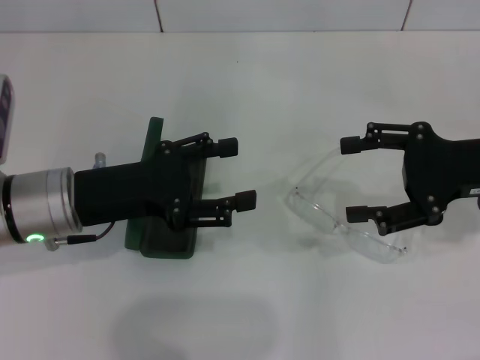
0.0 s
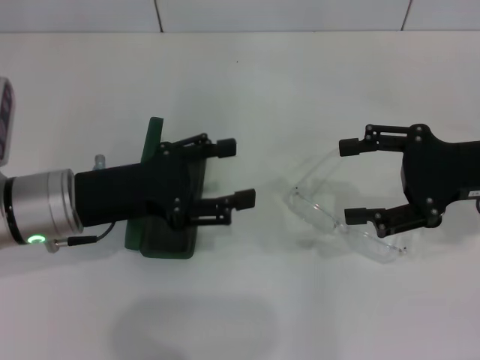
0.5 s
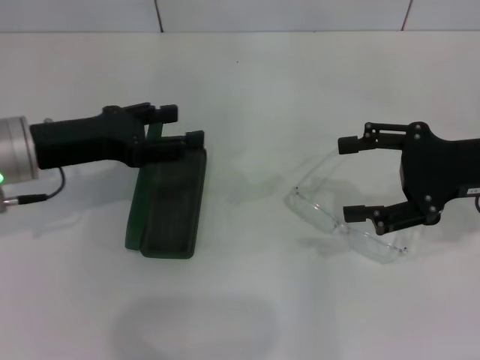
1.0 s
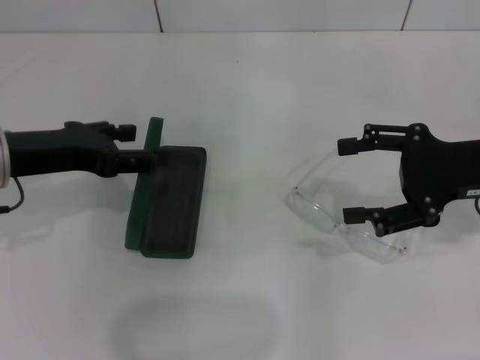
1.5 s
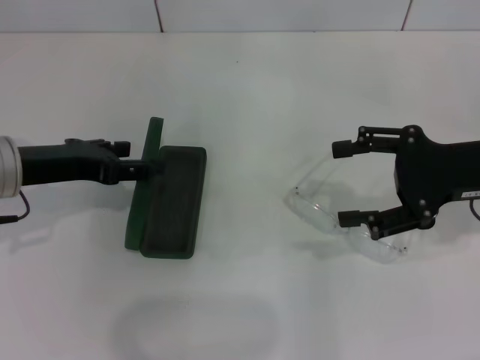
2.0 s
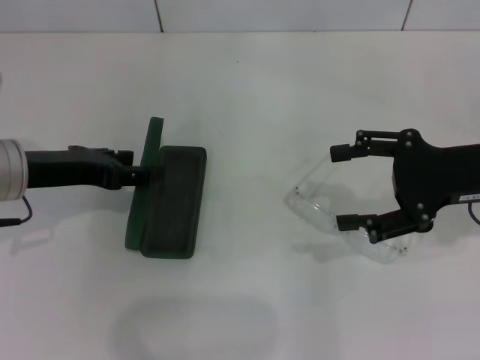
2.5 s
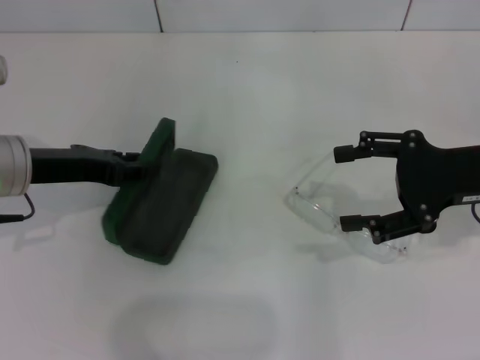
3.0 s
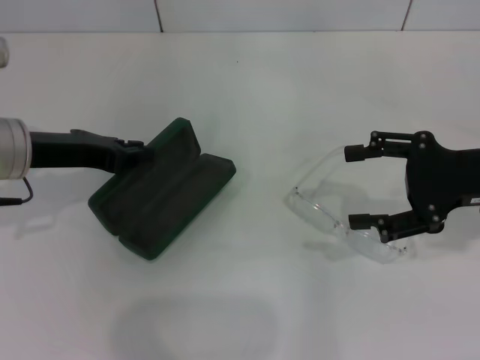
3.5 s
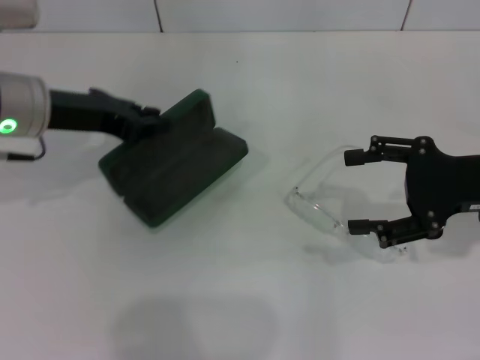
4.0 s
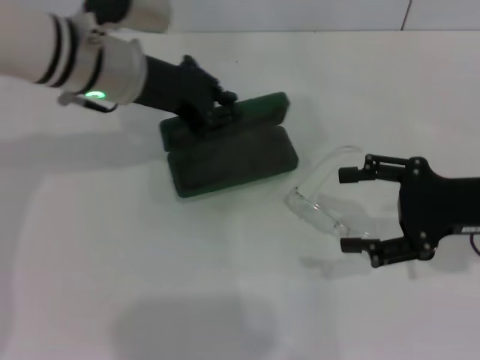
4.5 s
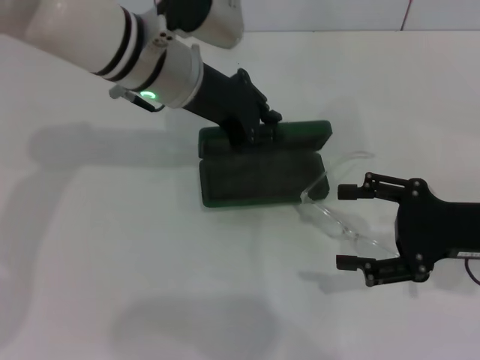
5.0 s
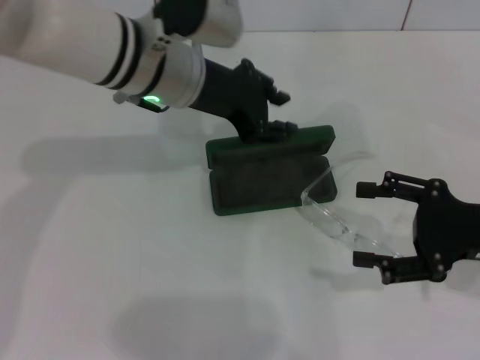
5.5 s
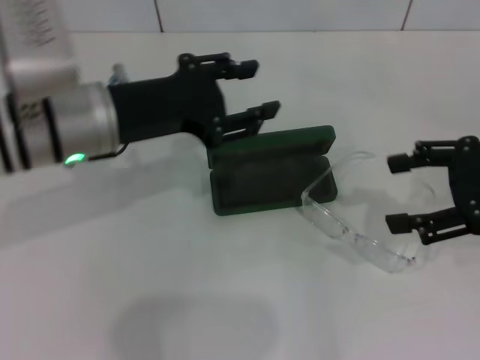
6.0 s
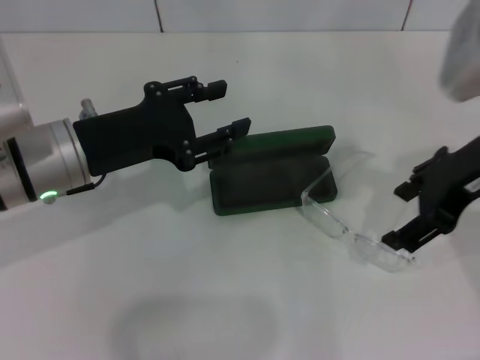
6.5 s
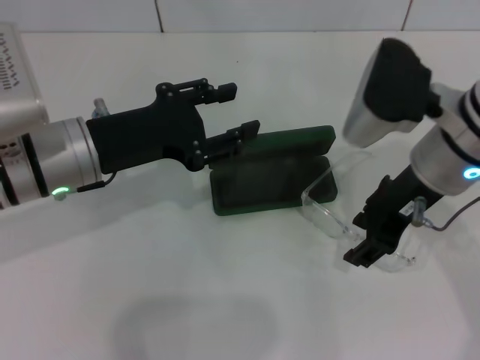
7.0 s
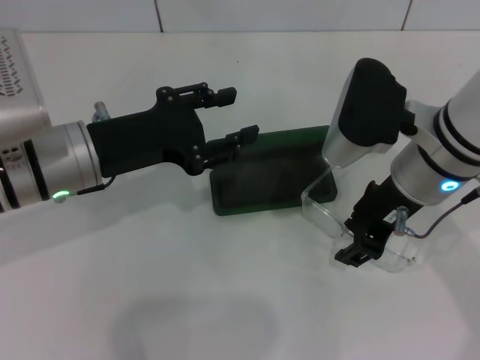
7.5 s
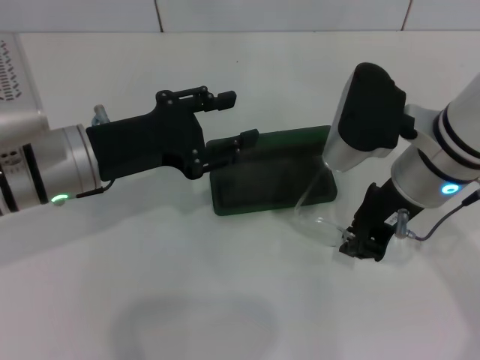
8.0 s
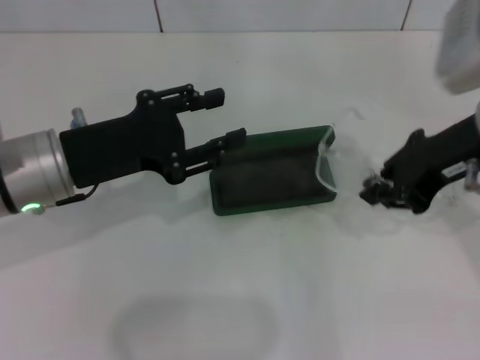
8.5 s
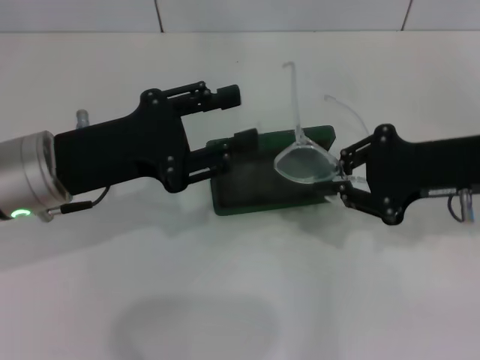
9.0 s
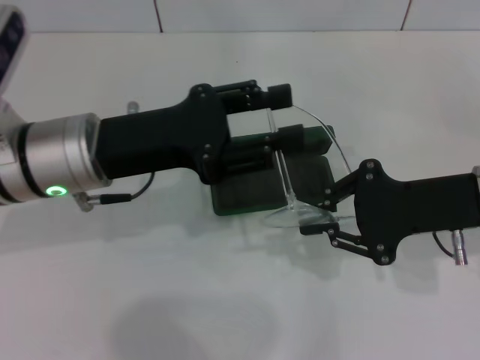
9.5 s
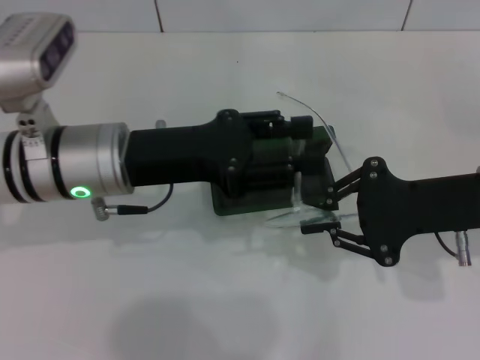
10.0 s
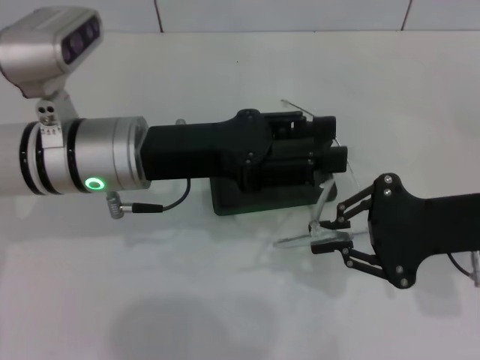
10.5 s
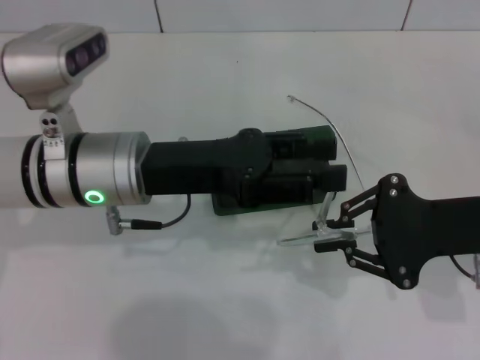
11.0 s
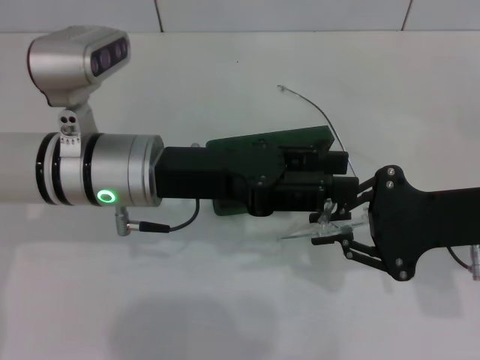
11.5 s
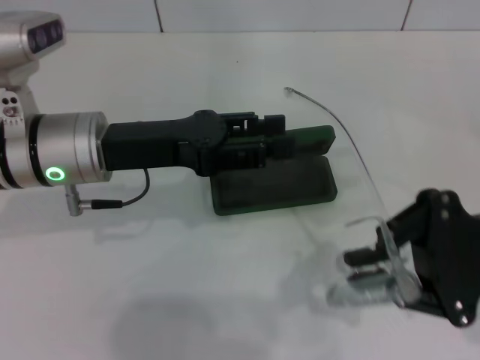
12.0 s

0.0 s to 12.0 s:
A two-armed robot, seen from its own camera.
Step, 0.0 to 3.0 s: Grab the glasses case with your left hand.
Step, 3.5 to 5.0 s: Place the glasses case in the center of the table with your left hand.
Step, 5.5 to 8.0 s: Grab the eyeglass frame with your right hand.
0.0 to 2.0 s: The left gripper moves about 5 cm.
2.0 to 4.0 s: The left gripper is displaced forward by some 5 cm, and closes up.
4.0 to 6.0 s: The left gripper shifts about 5 cm to the right, and opens its fingers, while the right gripper travels upward by about 5 cm.
6.0 to 8.0 s: The right gripper heads to the left, covering some 15 cm, and closes up.
8.0 to 10.0 s: The right gripper goes approximately 10 cm to the right.

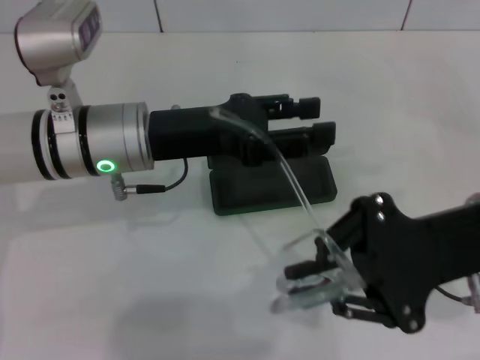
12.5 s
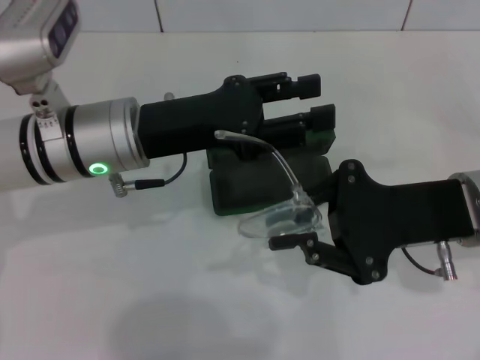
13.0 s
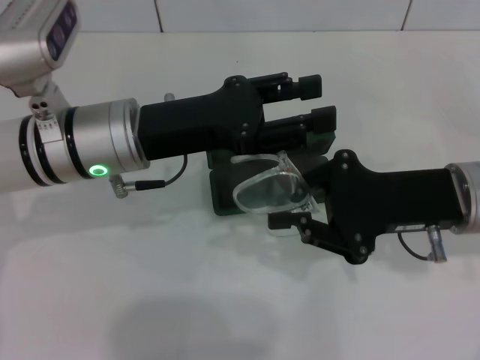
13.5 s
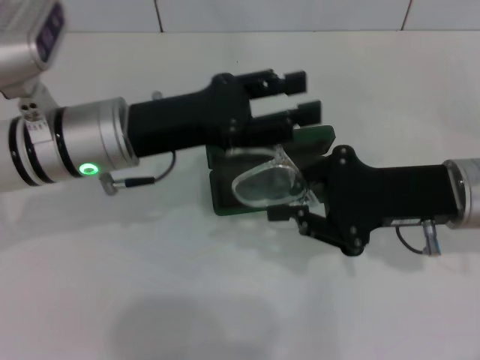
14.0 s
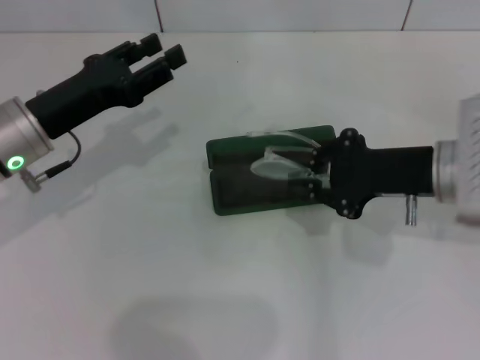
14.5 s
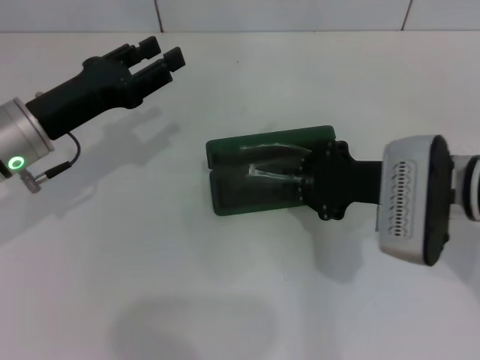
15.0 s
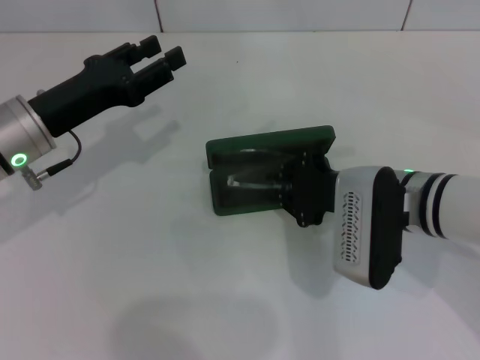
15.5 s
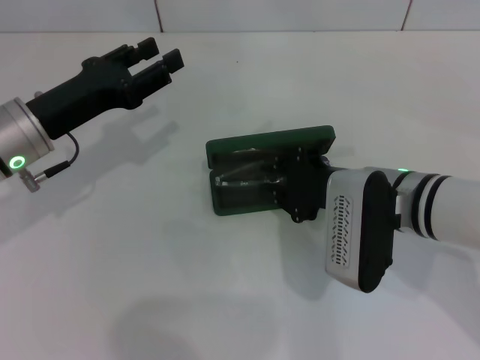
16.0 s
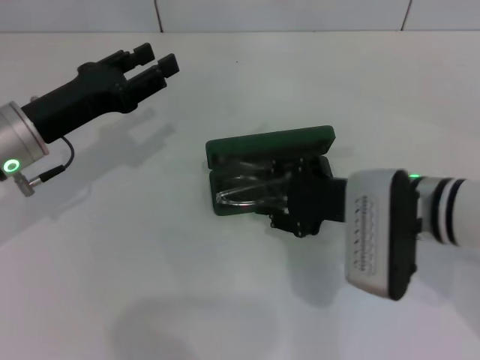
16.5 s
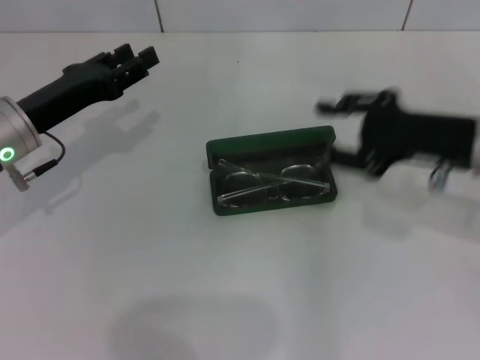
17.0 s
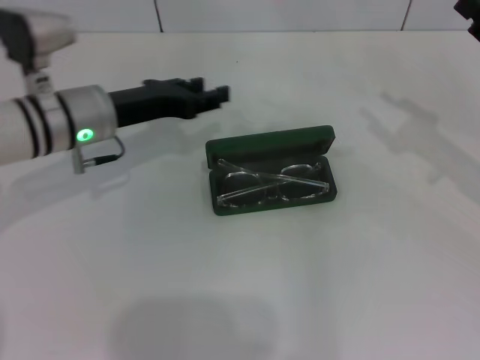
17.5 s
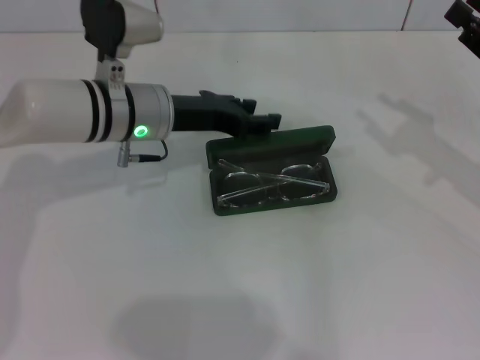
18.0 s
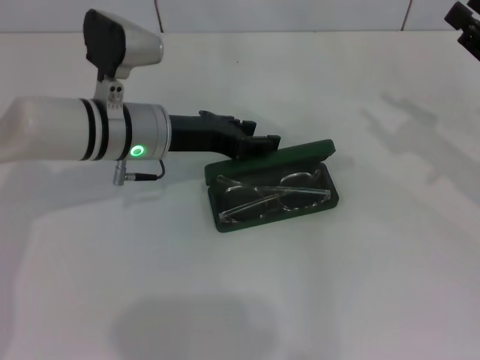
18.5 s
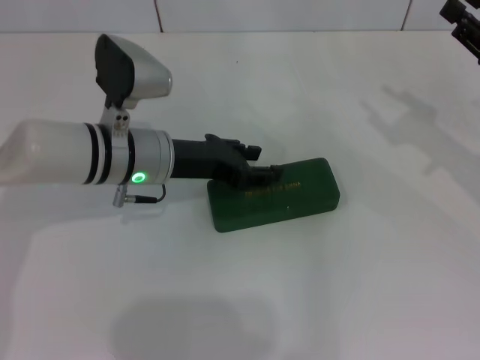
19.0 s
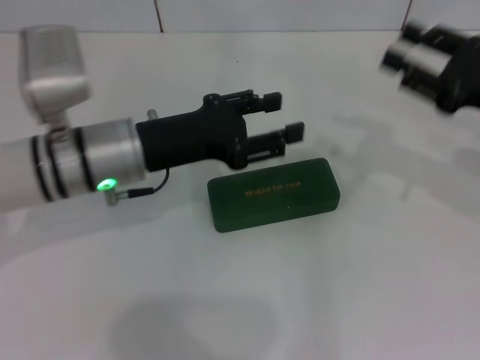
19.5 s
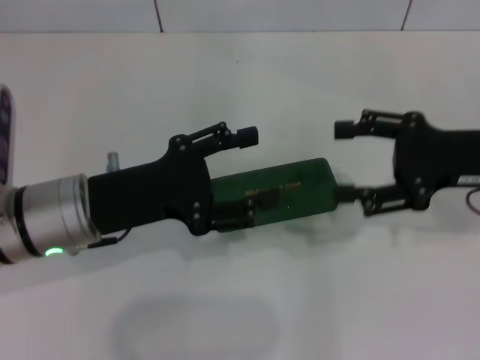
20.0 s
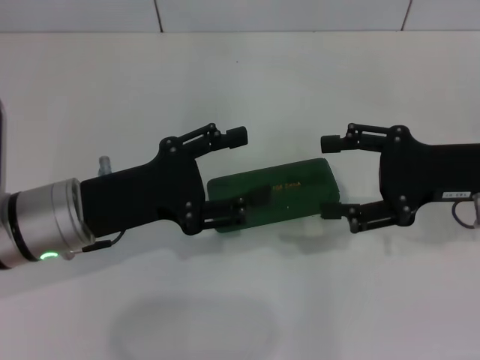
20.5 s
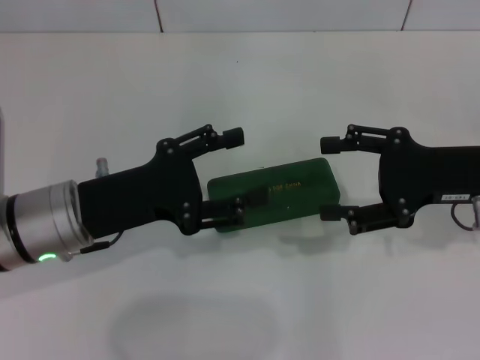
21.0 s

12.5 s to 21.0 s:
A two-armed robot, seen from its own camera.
Step, 14.0 to 16.5 s: Put the glasses into the case with your right hand.
Step, 17.0 to 18.5 s: Close the glasses case with your left hand.
12.5 to 14.5 s: The left gripper moves to the left, roughly 10 cm. Meanwhile the right gripper moves forward, roughly 5 cm.
14.5 to 16.5 s: The right gripper travels to the left by about 5 cm.
16.5 to 19.0 s: The right gripper moves to the right, approximately 20 cm. Meanwhile the left gripper travels to the right by some 10 cm.
19.0 to 21.0 s: The left gripper goes roughly 10 cm backward and to the left; the right gripper heads to the left, covering about 5 cm, and opens its fingers.

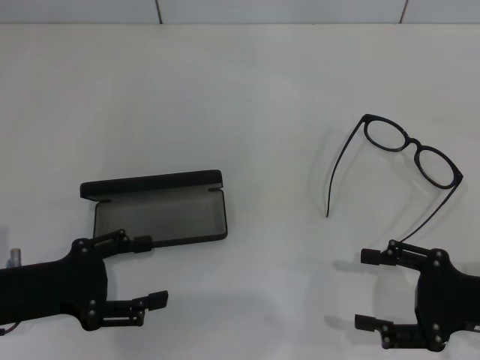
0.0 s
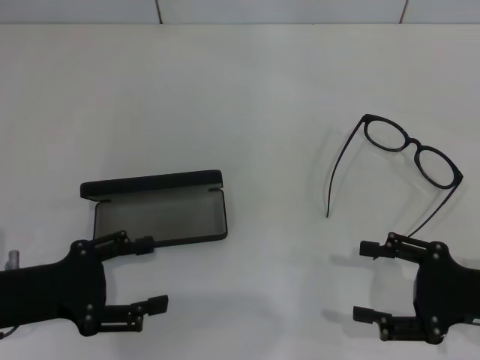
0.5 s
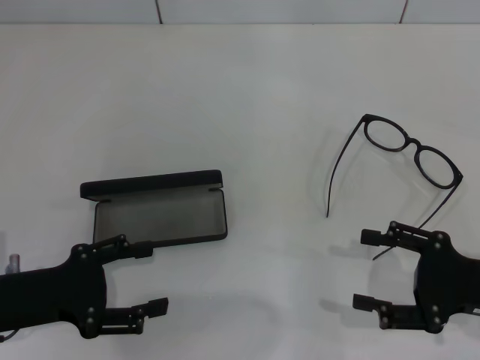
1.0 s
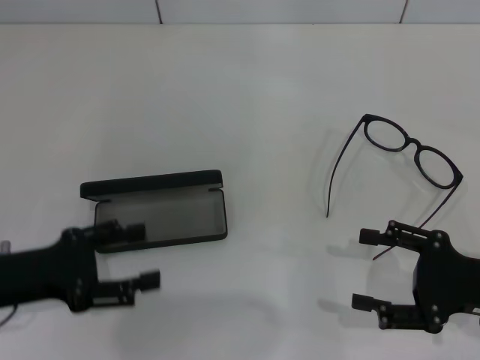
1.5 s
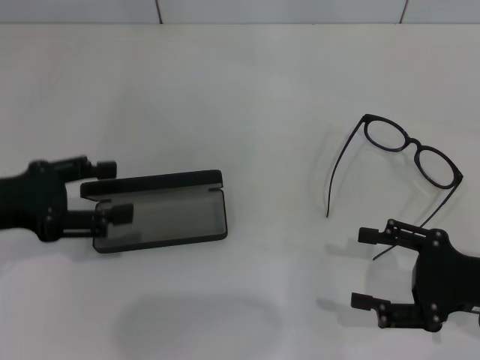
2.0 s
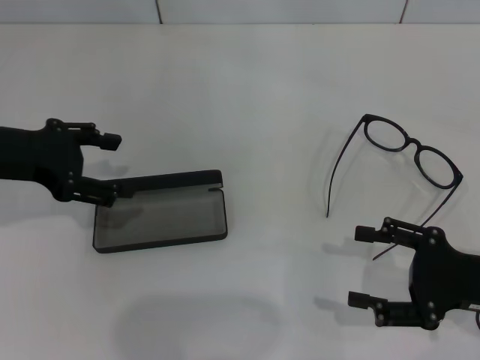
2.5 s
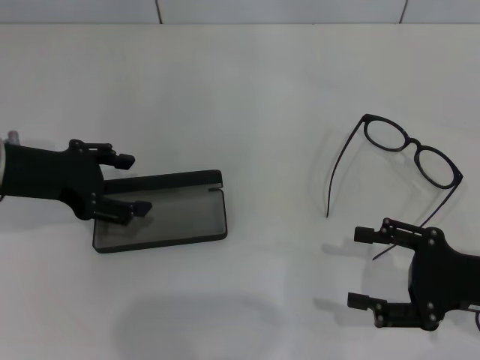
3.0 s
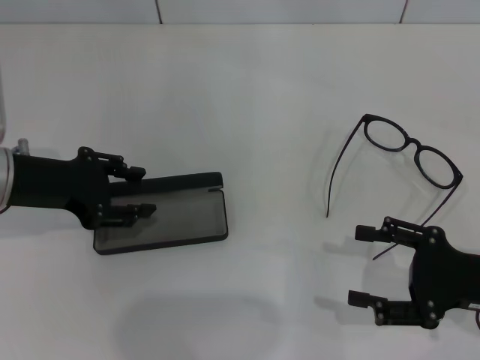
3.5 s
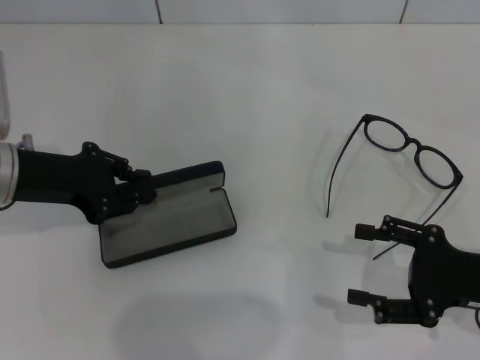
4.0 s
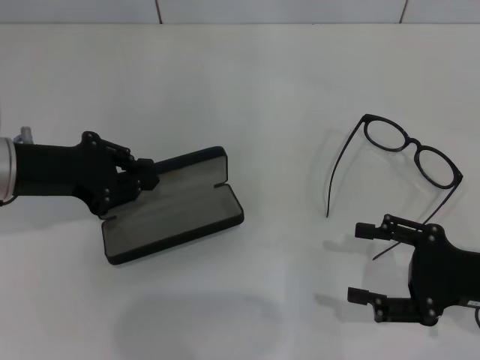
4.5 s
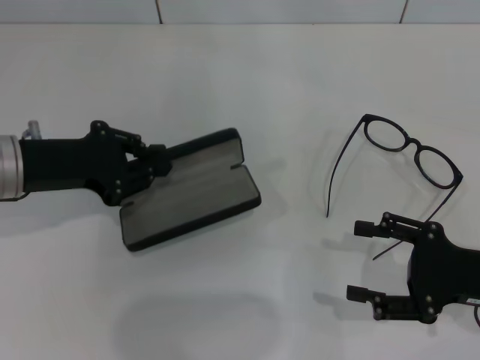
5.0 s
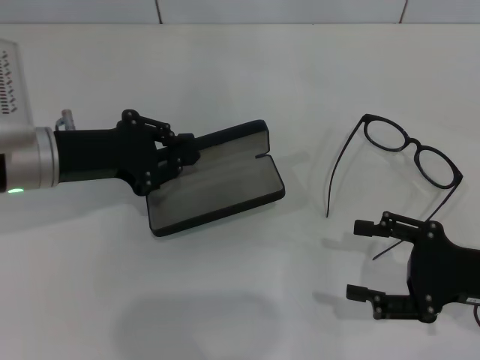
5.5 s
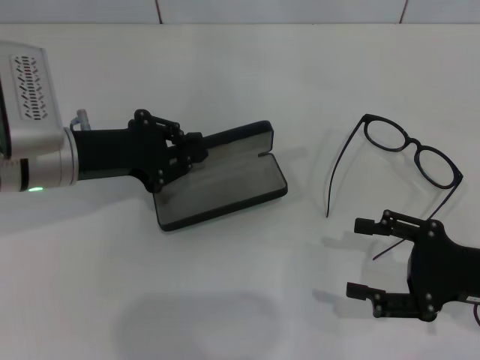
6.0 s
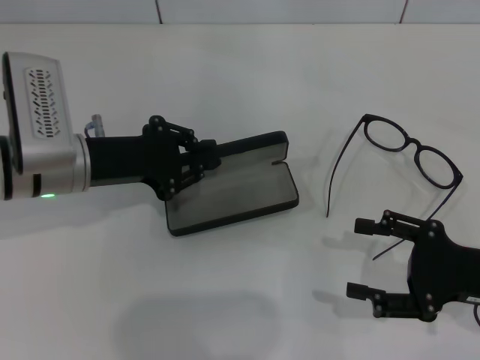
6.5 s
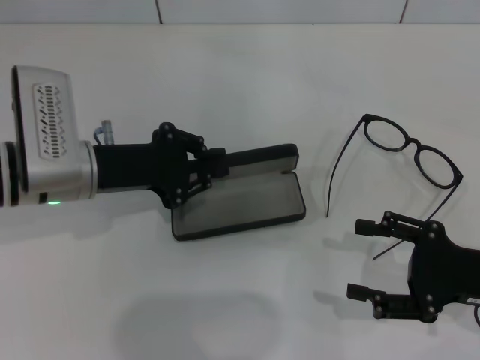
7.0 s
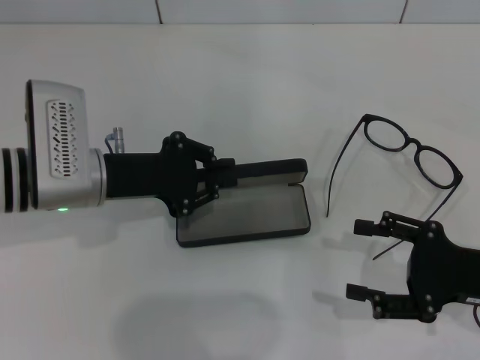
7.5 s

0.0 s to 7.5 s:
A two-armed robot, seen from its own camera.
Step, 0.0 to 3.5 s: Grab the glasses case with your left hand.
0.0 to 2.0 s: The left gripper travels upward by approximately 5 cm.
2.0 to 4.0 s: The left gripper goes approximately 5 cm forward, and closes its fingers.
4.0 to 5.5 s: The grippers stay close to where they were, moving slightly.
5.5 to 7.5 s: The grippers make only small movements.
